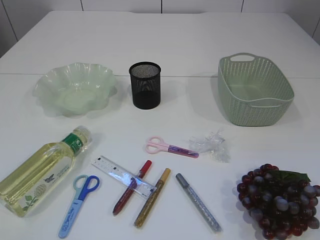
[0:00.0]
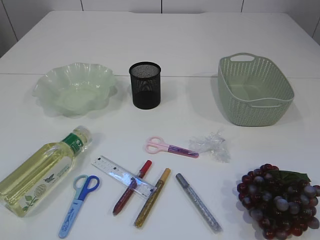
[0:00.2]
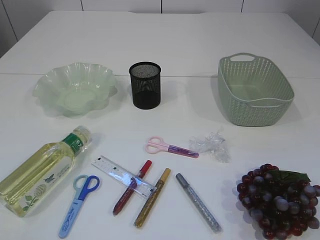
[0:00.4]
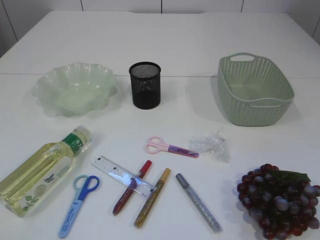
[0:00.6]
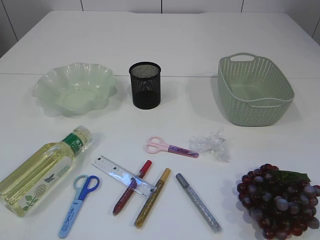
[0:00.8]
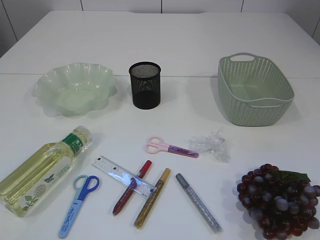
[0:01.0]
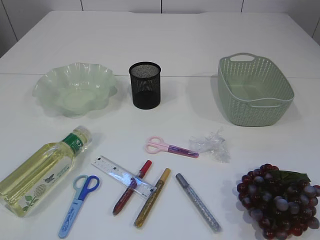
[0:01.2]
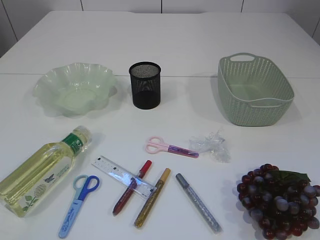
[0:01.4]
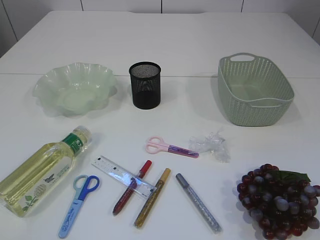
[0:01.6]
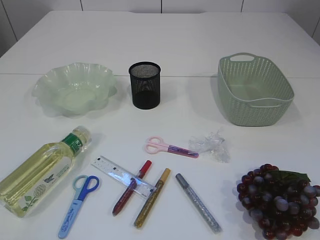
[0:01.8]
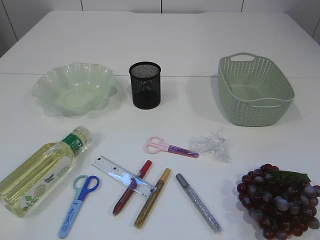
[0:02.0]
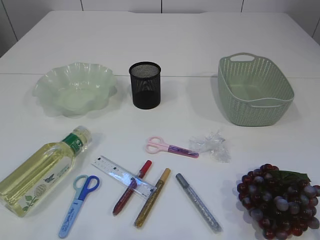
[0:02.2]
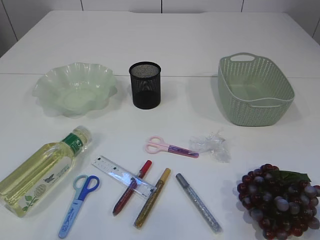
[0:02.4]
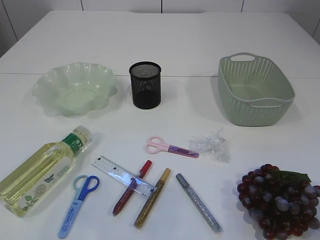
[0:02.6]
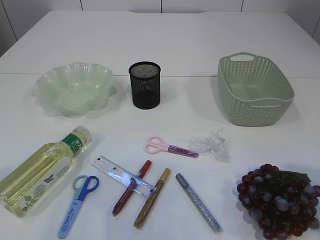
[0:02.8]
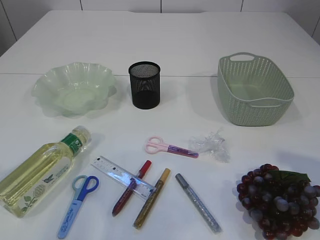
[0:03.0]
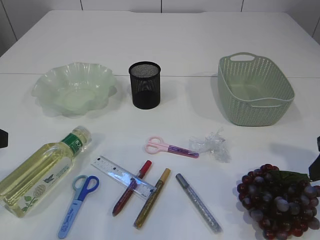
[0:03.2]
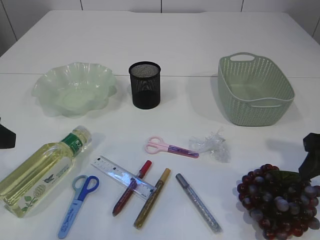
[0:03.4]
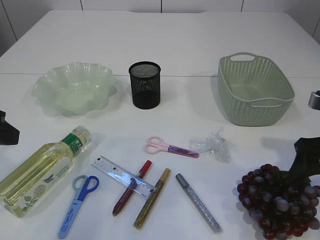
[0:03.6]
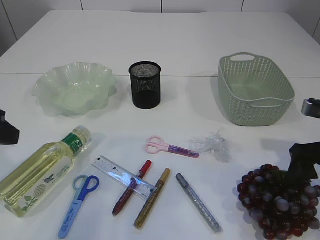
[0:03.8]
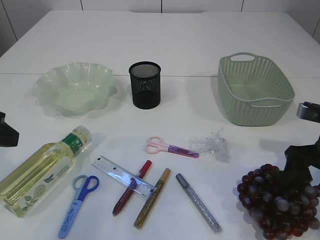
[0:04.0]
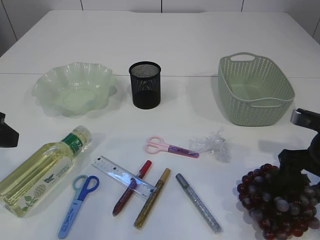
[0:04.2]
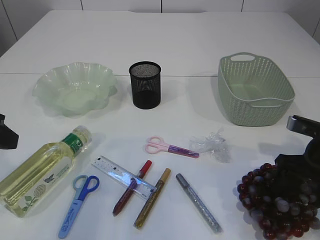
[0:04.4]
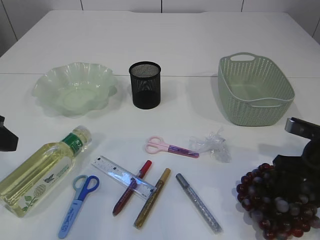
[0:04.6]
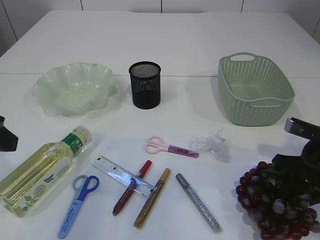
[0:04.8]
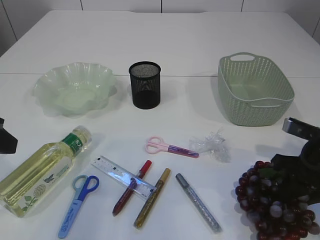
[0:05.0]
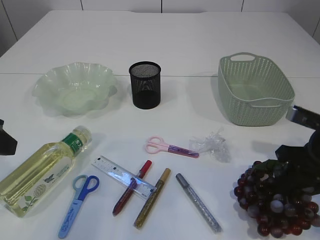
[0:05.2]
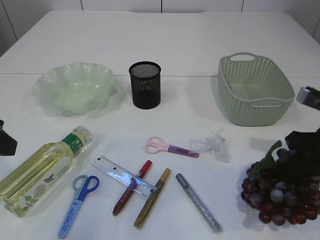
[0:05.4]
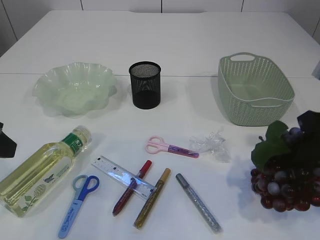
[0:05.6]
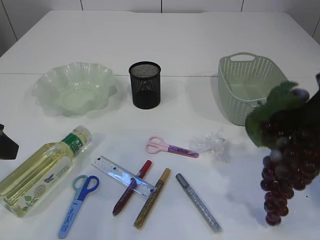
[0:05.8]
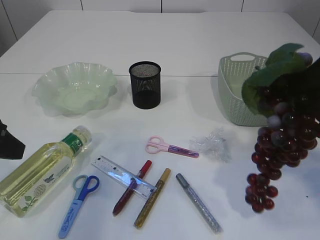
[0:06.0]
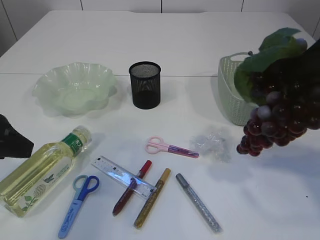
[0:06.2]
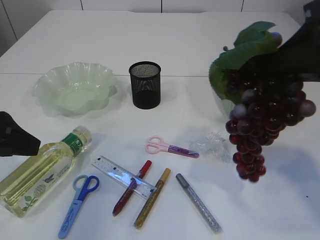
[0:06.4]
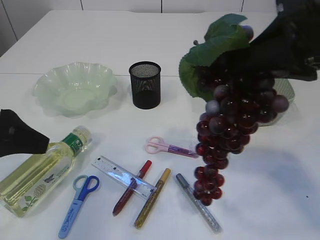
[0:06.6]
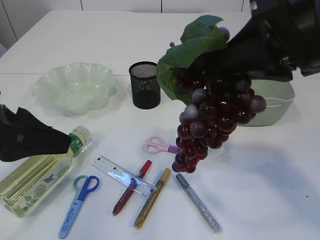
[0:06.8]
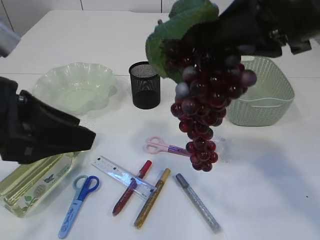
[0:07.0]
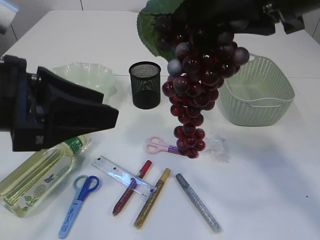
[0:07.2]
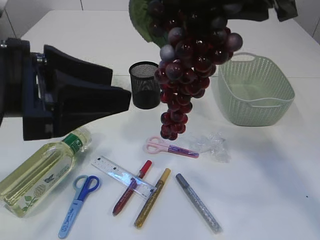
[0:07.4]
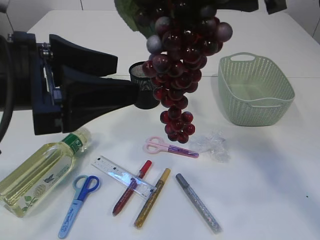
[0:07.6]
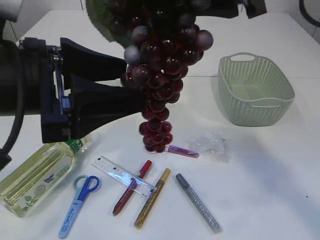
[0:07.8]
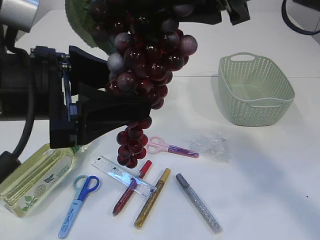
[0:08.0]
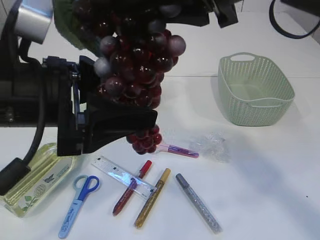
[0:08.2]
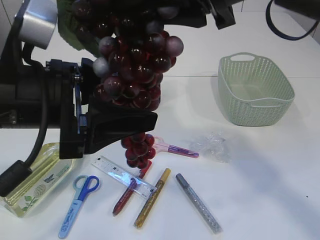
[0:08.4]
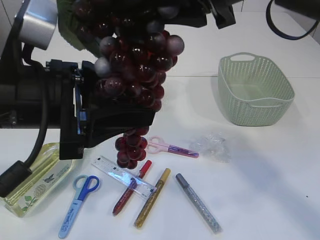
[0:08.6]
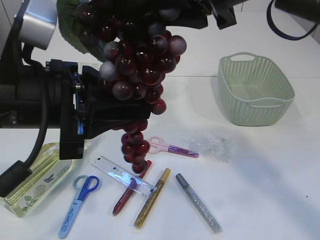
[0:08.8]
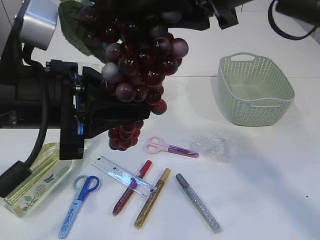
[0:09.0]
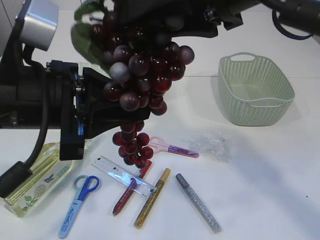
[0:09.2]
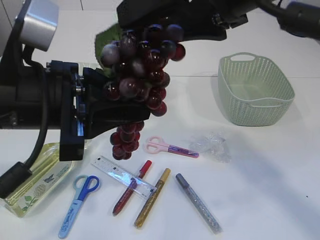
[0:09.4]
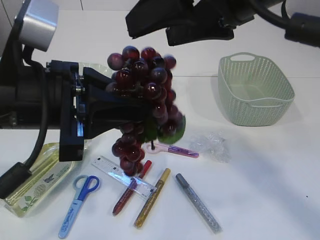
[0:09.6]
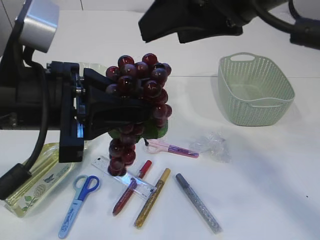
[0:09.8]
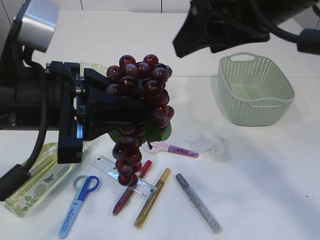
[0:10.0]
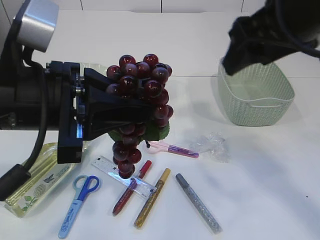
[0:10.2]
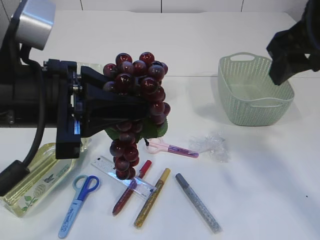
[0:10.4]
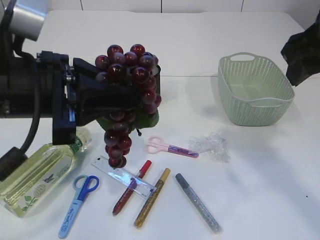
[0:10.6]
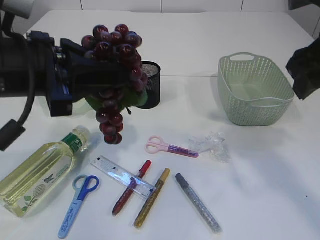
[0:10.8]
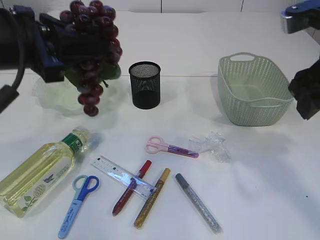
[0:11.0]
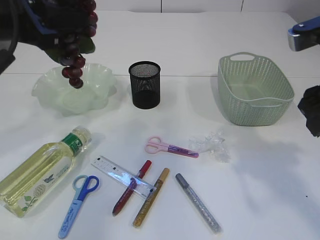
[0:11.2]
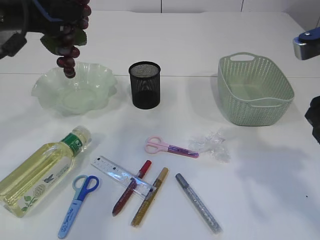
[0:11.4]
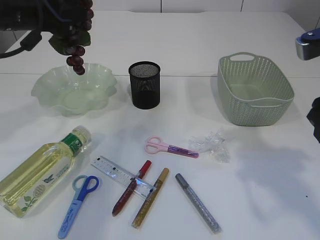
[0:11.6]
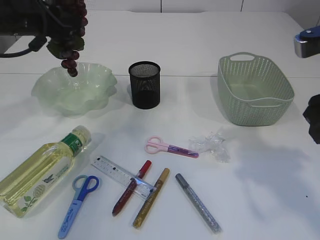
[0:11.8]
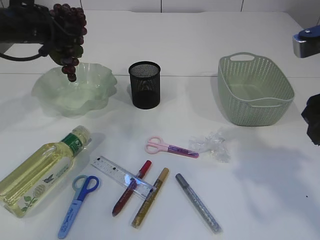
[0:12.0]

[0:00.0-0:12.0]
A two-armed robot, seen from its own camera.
Step, 0.0 to 6.4 s: Pick up the grapes.
Step, 6.6 to 10.2 s: Hand over the grapes.
1.6 to 3.0 s: Both grippers move forward, about 15 cm.
3.0 to 4.4 s: The right gripper travels downward and forward by roughly 15 cm; the left gripper shifts by approximately 5 cm.
4.4 to 6.0 s: The right gripper shifts roughly 20 cm upward, and closes.
6.0 to 7.6 s: The right gripper goes about 15 cm to the left and upward. The left gripper moves to the right, roughly 10 cm, and opens its fingers.
7.6 to 9.0 s: The left gripper closes.
9.0 to 10.4 s: The right gripper goes approximately 10 cm to the right, and opens up.
10.4 to 12.0 s: The left gripper moves forward and to the left, roughly 25 cm. Meanwhile the right gripper goes about 5 cm downward.

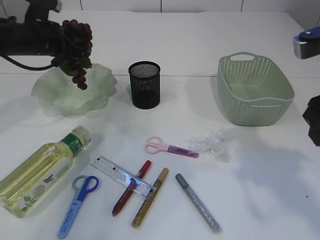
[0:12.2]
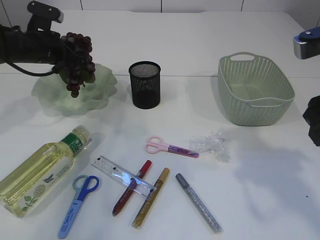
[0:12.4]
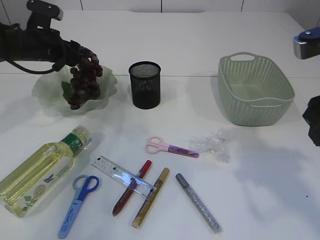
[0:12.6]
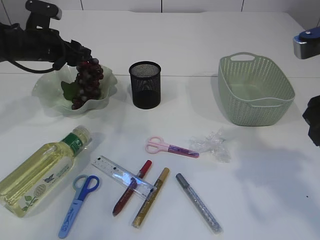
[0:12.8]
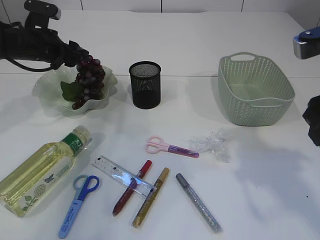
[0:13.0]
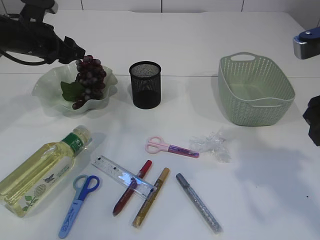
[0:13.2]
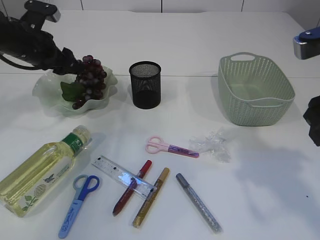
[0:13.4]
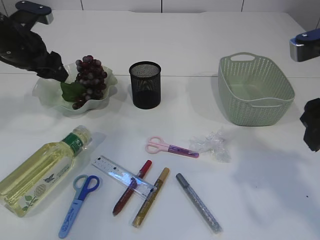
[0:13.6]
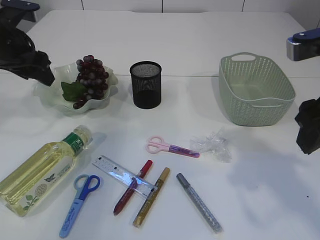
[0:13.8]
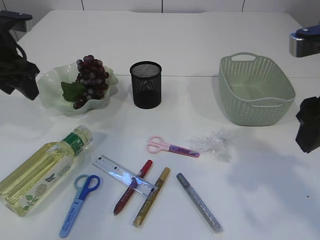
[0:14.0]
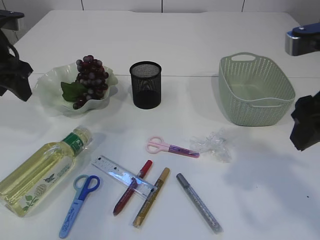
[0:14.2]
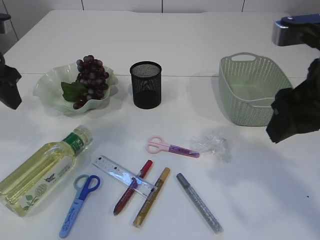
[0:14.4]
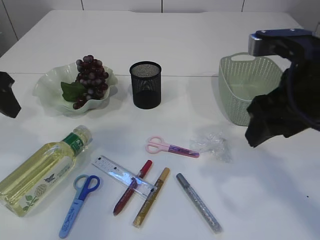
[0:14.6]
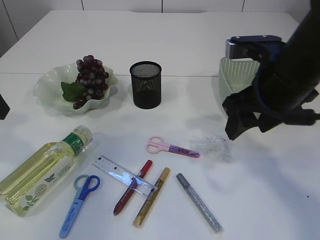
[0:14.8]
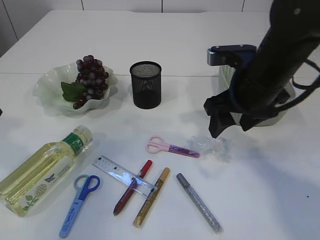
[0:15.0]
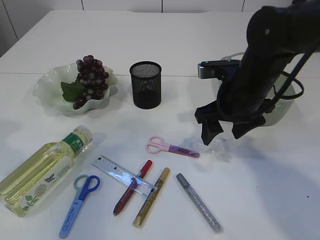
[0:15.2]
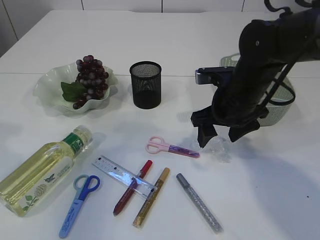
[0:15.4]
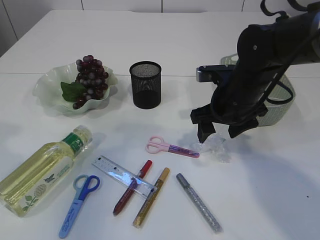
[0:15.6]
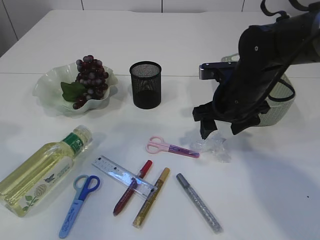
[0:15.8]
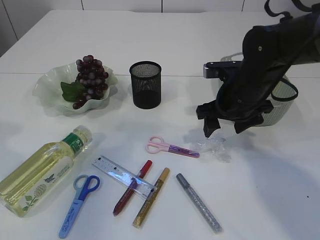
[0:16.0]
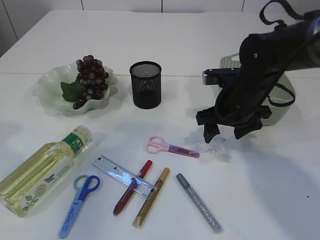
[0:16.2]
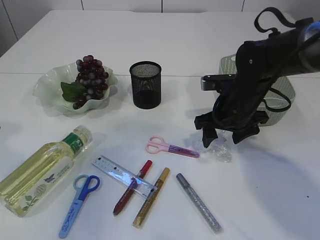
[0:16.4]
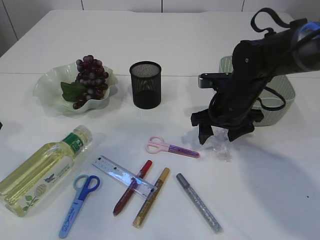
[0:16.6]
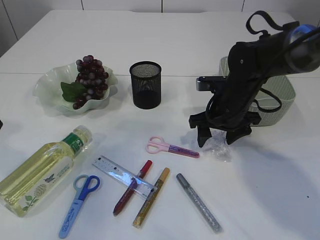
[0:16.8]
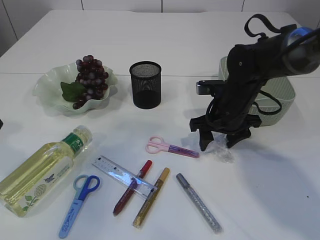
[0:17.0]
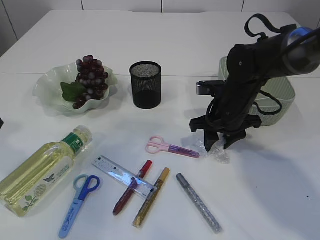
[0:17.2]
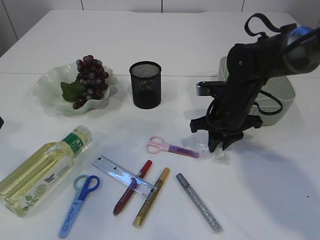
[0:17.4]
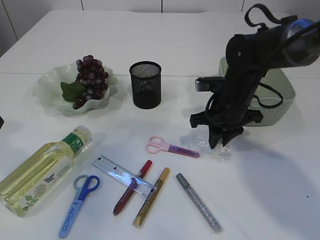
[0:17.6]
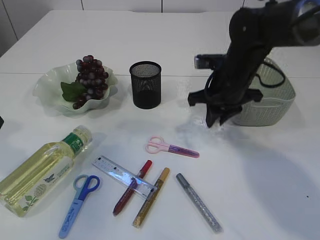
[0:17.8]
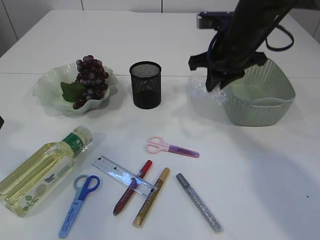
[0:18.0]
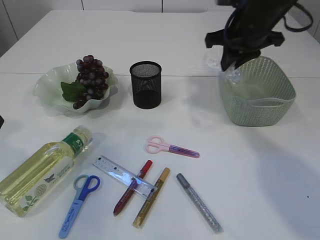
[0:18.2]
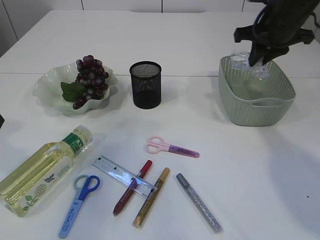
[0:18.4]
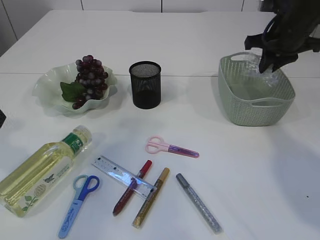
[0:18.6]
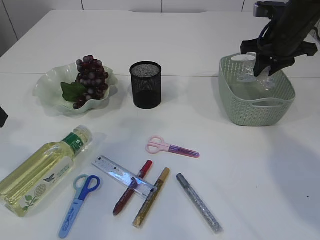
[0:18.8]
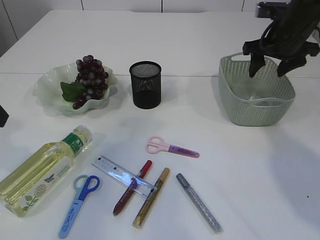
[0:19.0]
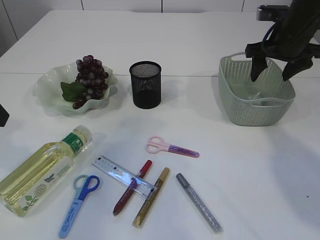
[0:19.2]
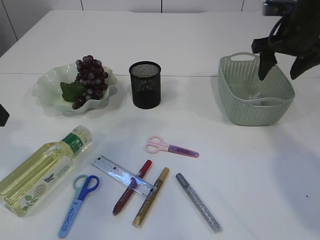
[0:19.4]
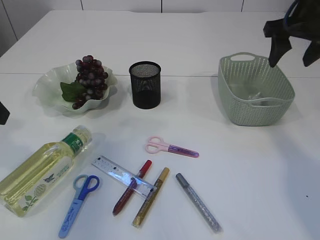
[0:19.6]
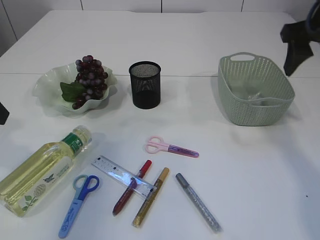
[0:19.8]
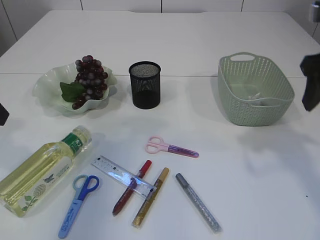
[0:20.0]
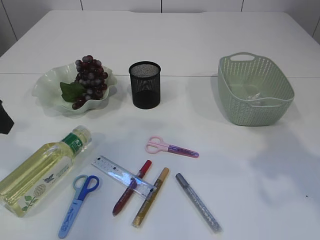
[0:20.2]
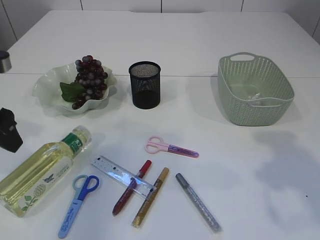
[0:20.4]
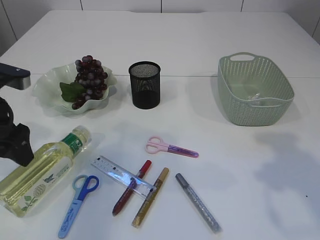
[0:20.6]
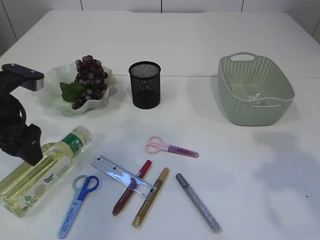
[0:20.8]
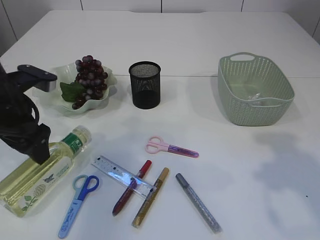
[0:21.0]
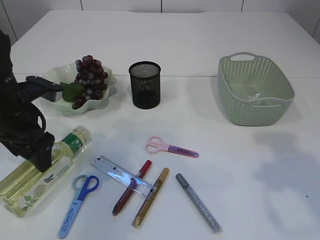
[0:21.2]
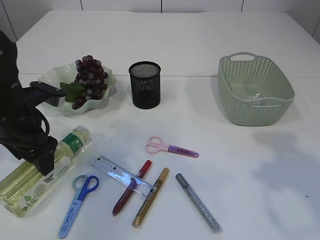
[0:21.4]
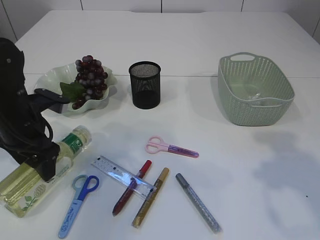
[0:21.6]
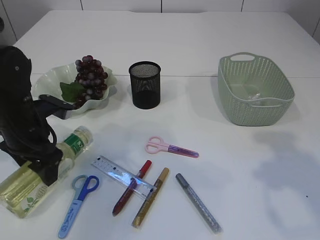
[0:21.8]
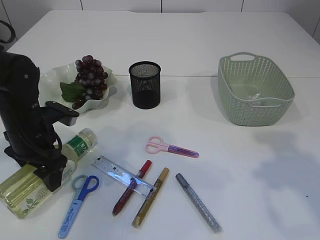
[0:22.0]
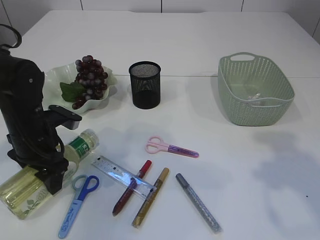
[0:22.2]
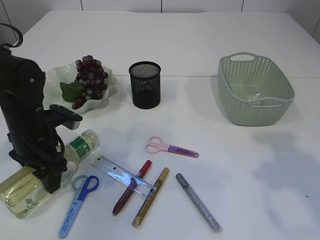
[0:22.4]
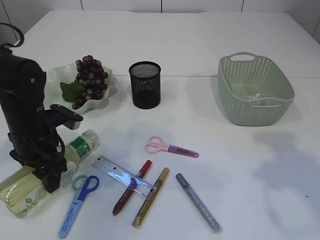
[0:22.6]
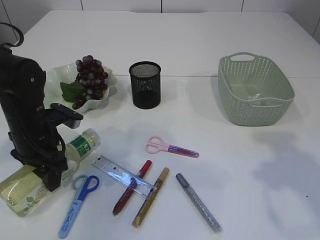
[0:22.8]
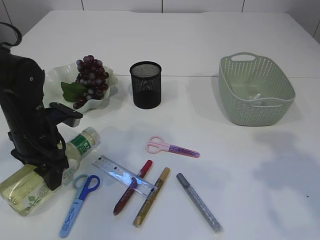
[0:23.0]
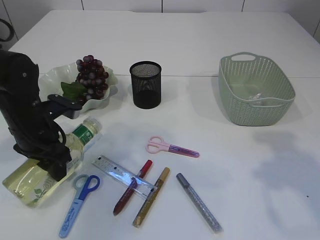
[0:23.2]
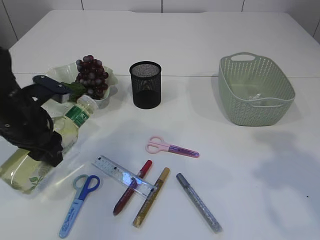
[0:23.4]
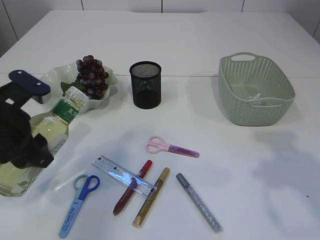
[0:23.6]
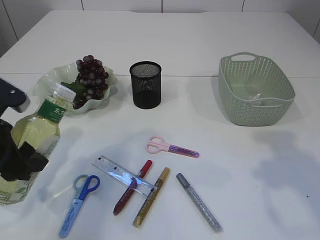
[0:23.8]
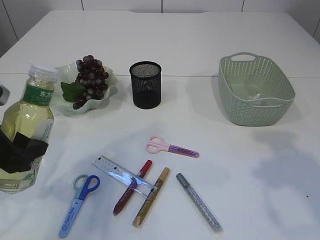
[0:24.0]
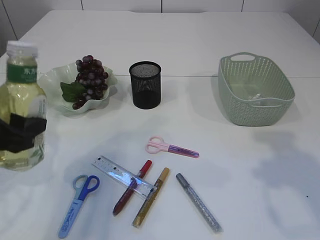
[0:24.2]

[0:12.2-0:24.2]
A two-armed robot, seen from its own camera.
Step, 13.8 to 17.8 s: Pick up the plastic.
Step, 18.0 to 19.6 s: Place the plastic in the basket.
Step, 19.8 to 23.8 s: Pick up the bottle with the left arm.
12.2 to 13.8 s: The left gripper heads backward, covering some 5 cm, and opens up.
13.8 to 15.2 s: The right gripper is displaced forward, downward and to the left by about 15 cm. The left gripper goes roughly 15 cm backward.
15.2 to 16.6 s: The right gripper moves downward, roughly 5 cm.
16.6 to 18.2 s: The right gripper heads upward, covering some 15 cm, and closes.
18.2 to 19.8 s: The right gripper moves to the right and backward, about 10 cm, and opens up.
19.8 to 21.2 s: The right gripper goes approximately 15 cm backward. Meanwhile the left gripper moves downward and forward, about 10 cm, and opens.
21.2 to 22.6 s: The left gripper heads downward, covering approximately 5 cm.
22.6 to 24.2 s: The left gripper heads backward and upward, covering about 15 cm.
